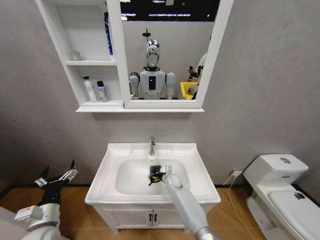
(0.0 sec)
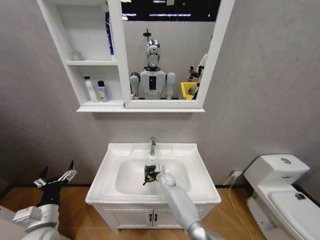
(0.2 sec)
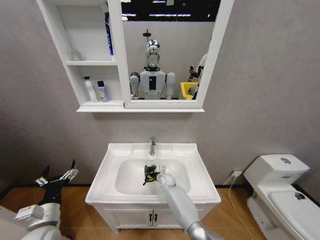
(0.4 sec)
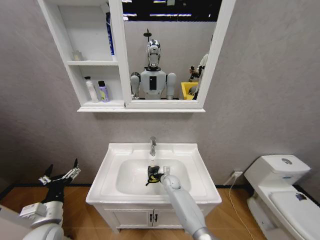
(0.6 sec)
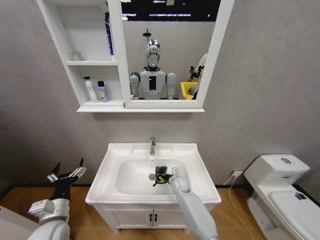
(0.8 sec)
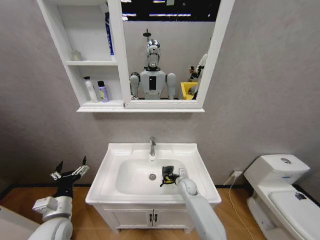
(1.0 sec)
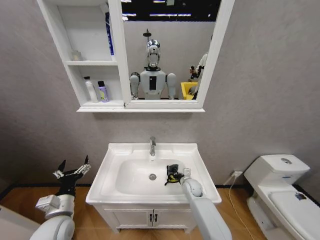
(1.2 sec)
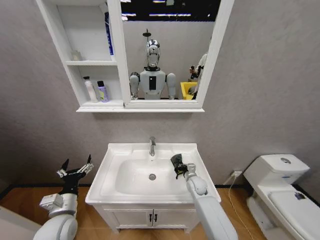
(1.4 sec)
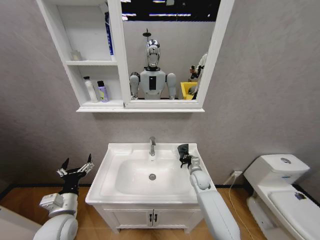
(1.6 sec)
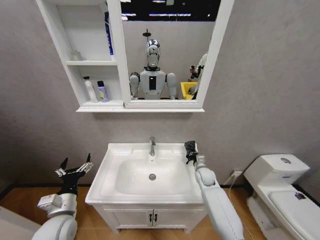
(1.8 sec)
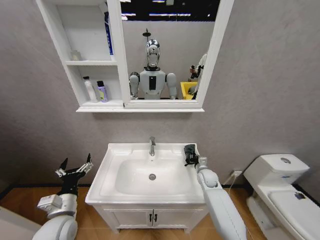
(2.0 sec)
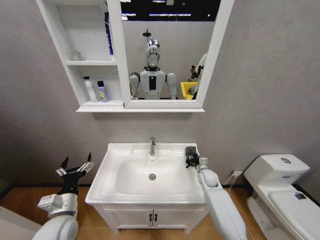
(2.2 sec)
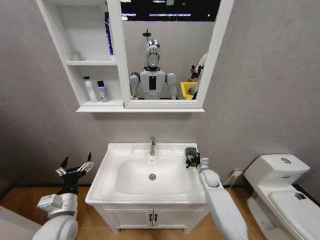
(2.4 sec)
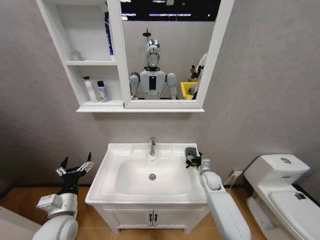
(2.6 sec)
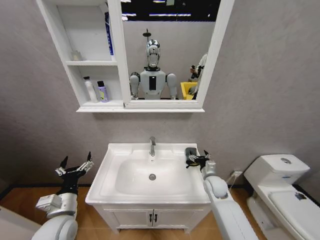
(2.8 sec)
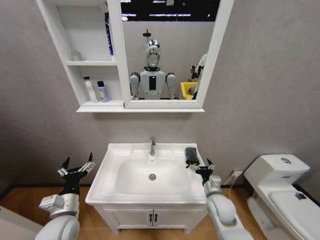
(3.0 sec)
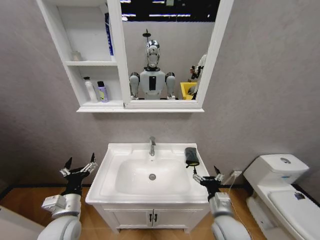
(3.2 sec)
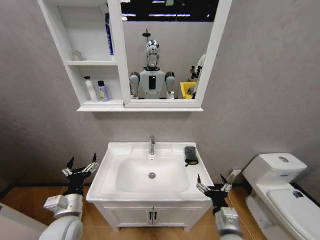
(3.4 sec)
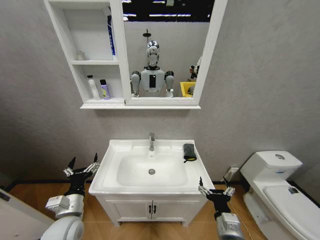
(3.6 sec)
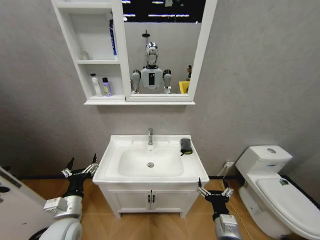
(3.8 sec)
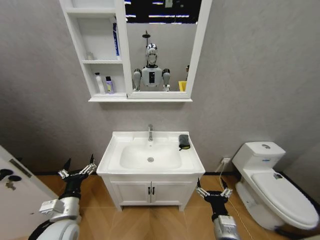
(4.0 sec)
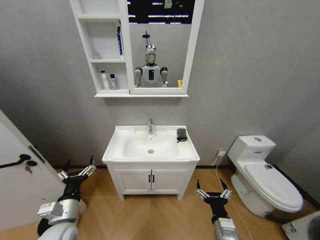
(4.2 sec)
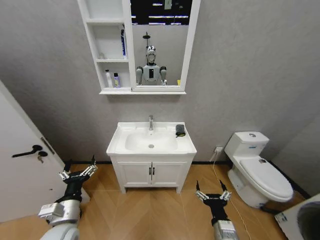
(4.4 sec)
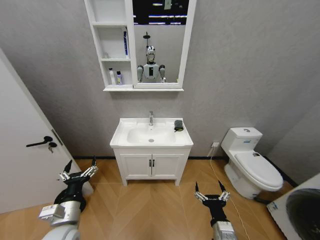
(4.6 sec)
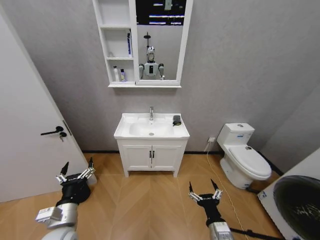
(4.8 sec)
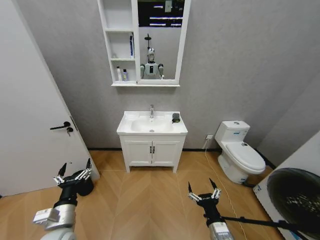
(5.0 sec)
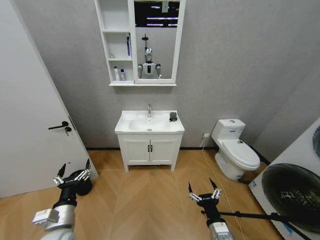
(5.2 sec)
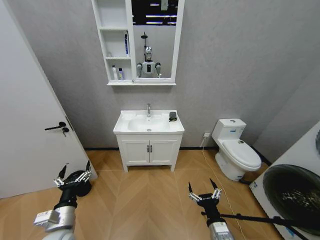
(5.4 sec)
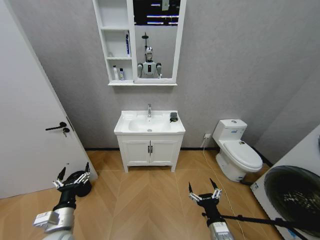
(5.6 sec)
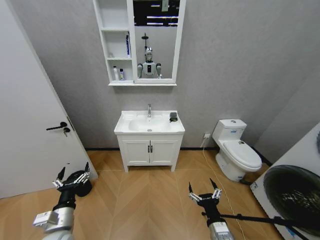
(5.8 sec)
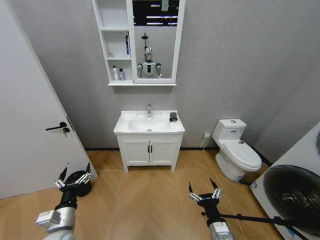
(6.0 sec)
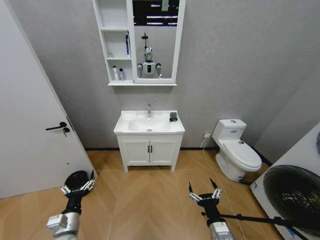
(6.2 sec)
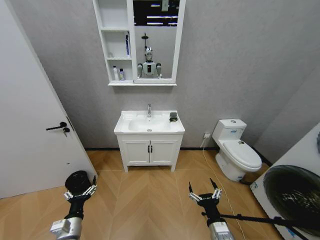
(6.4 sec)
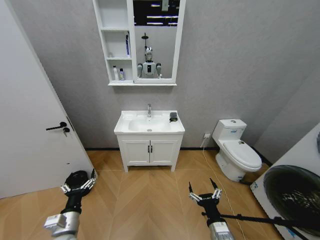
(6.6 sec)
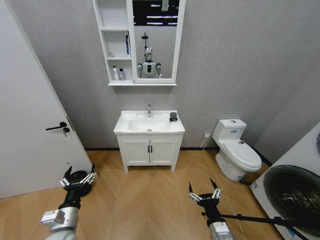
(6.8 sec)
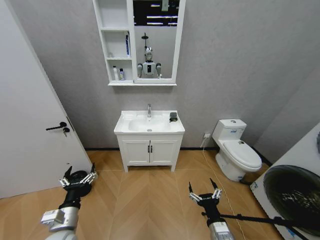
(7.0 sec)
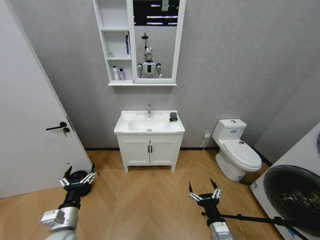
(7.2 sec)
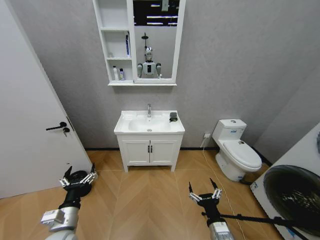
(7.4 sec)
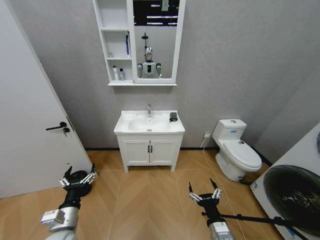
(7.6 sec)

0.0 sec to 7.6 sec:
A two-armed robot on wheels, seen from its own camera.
Task of the whole recording: Move facial cleanser and shampoo from washbasin to cabinet, then wipe washbasin with towel.
0.0 sec to 1.6 sec: The right gripper shifts some 15 cm to the right and upward; the left gripper moves roughly 5 cm.
1.6 sec to 3.0 sec: The right gripper heads backward, covering approximately 15 cm, and opens its fingers.
3.0 sec to 4.6 sec: The right gripper is displaced backward by roughly 15 cm.
